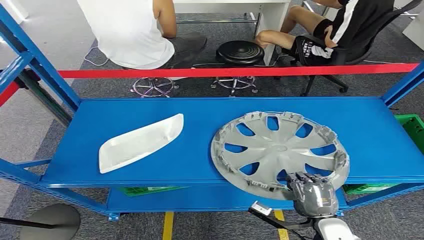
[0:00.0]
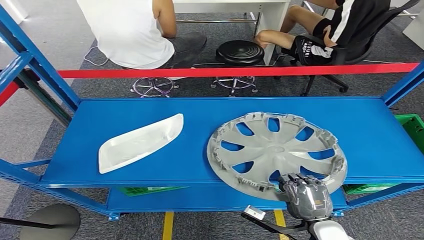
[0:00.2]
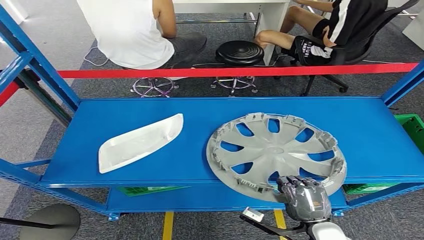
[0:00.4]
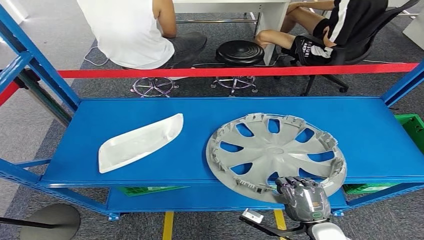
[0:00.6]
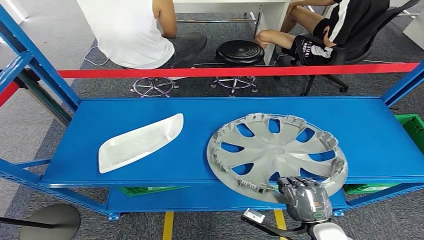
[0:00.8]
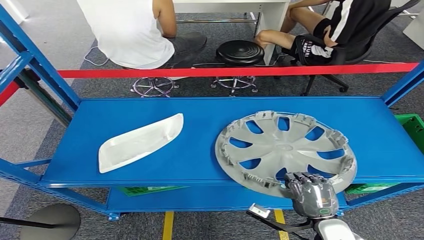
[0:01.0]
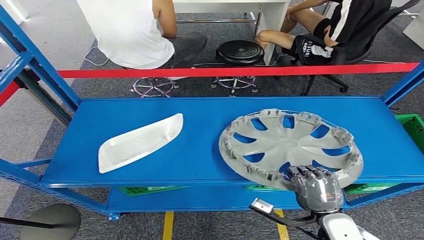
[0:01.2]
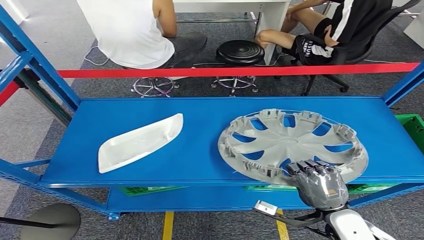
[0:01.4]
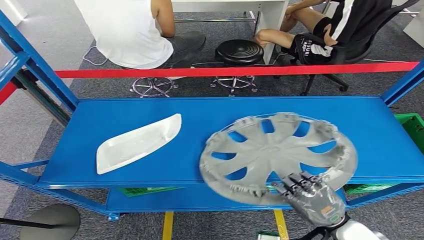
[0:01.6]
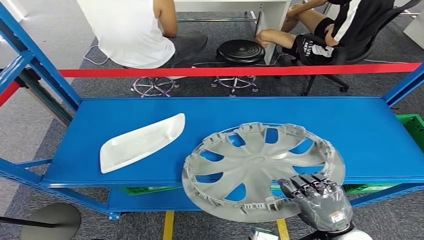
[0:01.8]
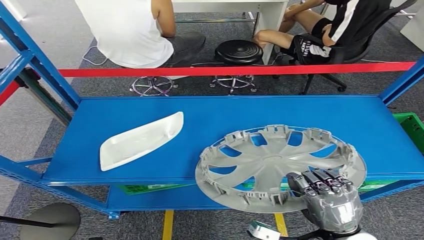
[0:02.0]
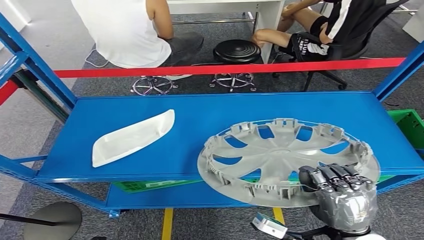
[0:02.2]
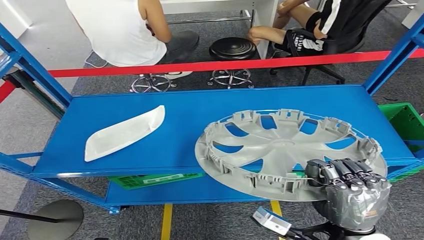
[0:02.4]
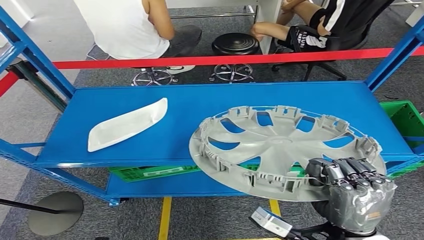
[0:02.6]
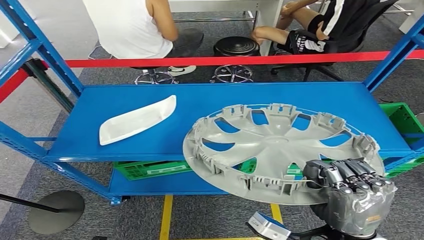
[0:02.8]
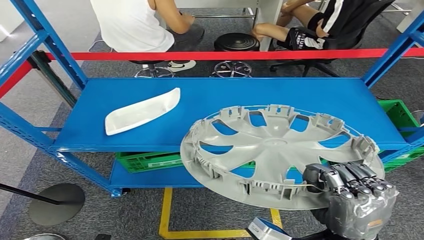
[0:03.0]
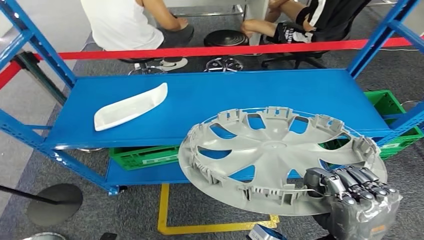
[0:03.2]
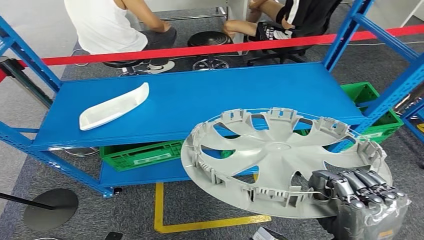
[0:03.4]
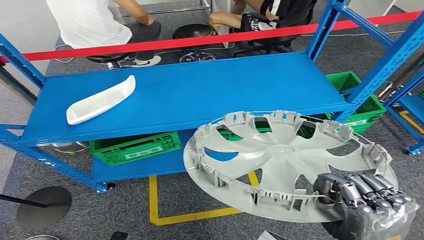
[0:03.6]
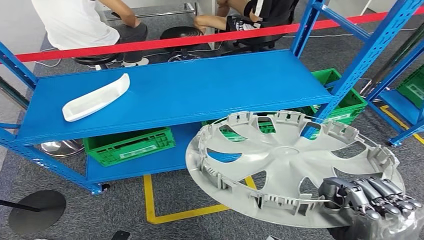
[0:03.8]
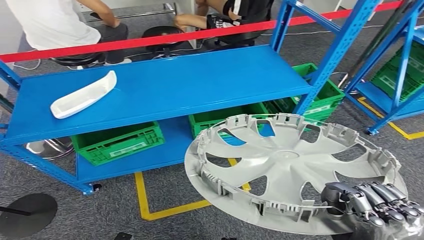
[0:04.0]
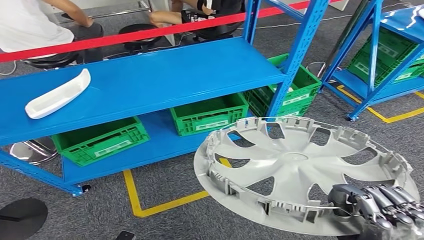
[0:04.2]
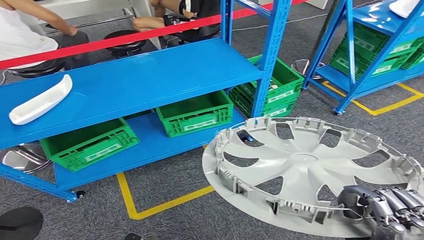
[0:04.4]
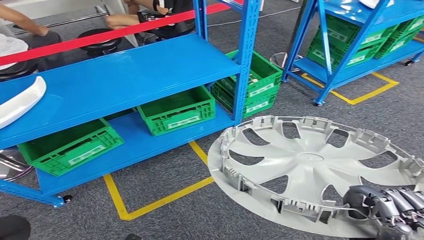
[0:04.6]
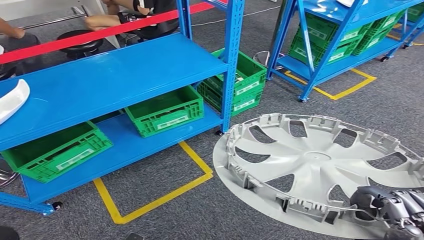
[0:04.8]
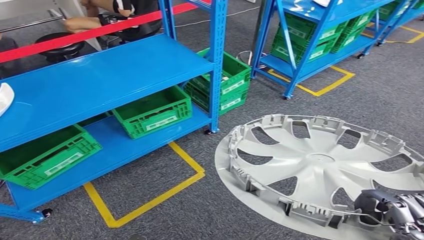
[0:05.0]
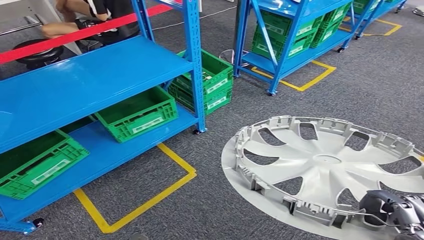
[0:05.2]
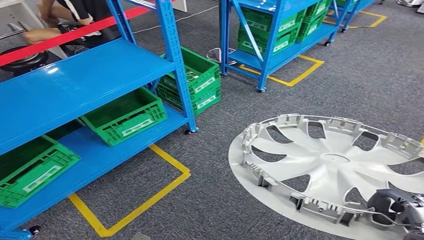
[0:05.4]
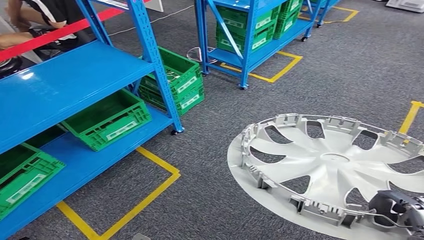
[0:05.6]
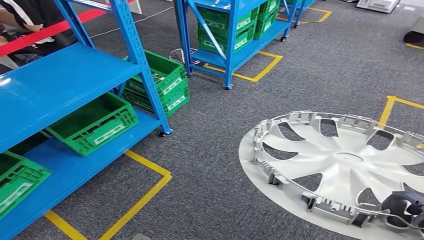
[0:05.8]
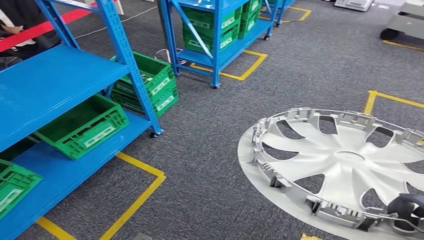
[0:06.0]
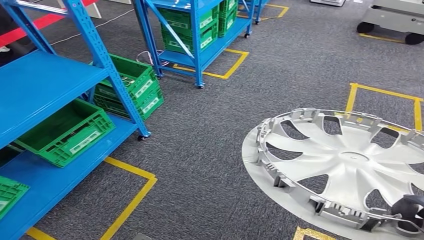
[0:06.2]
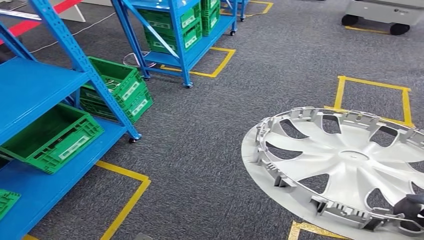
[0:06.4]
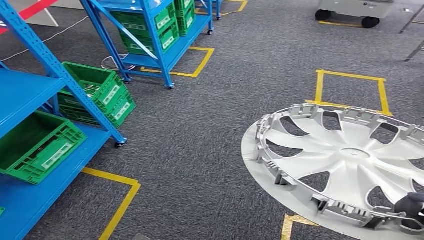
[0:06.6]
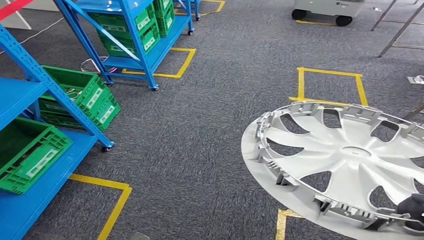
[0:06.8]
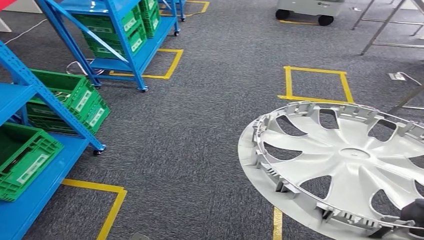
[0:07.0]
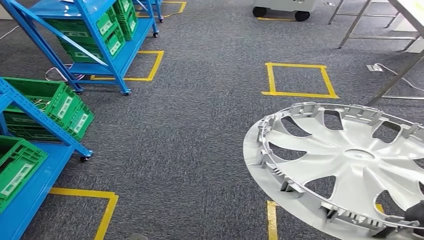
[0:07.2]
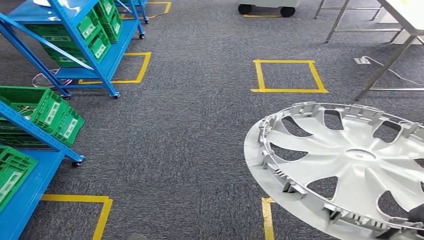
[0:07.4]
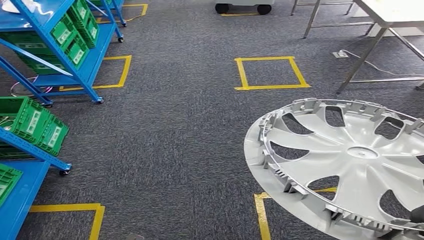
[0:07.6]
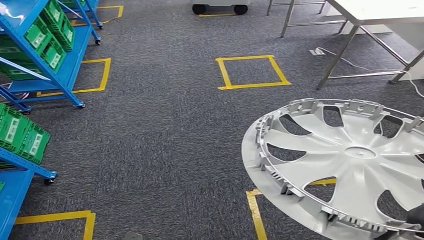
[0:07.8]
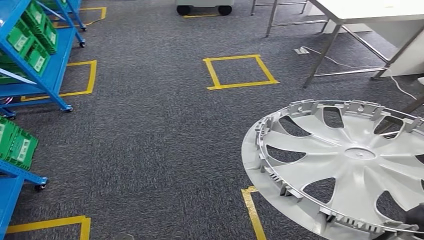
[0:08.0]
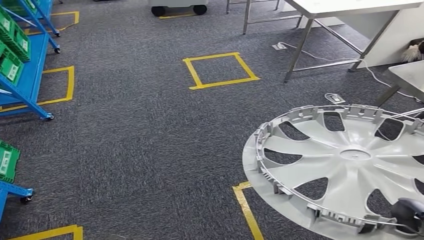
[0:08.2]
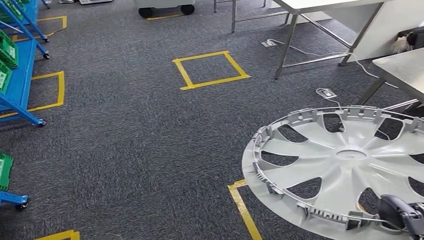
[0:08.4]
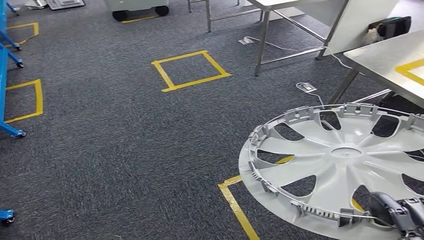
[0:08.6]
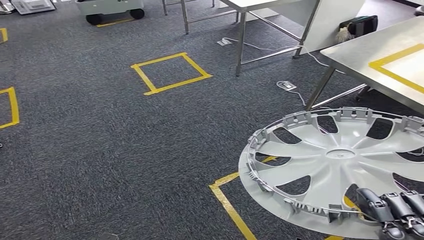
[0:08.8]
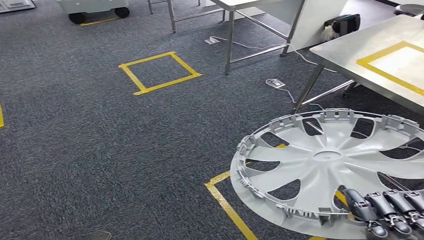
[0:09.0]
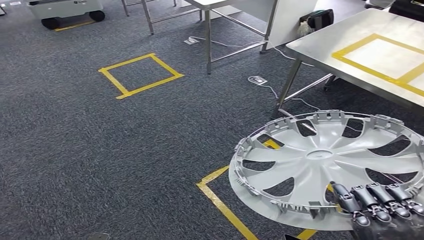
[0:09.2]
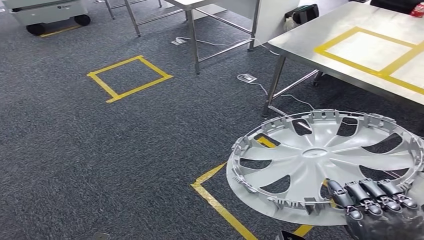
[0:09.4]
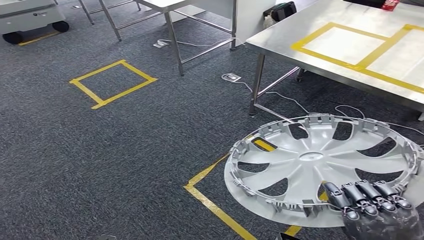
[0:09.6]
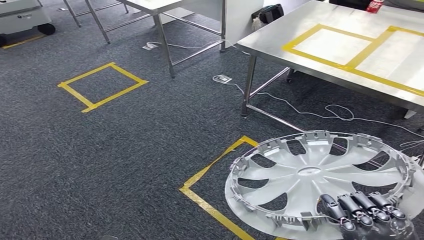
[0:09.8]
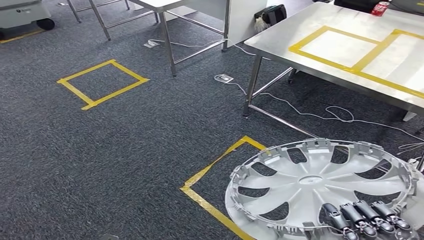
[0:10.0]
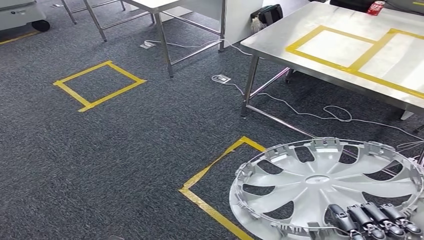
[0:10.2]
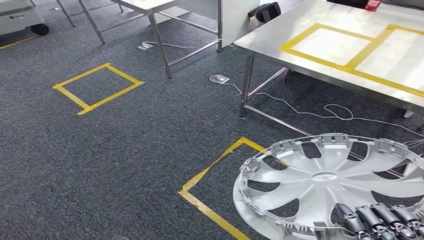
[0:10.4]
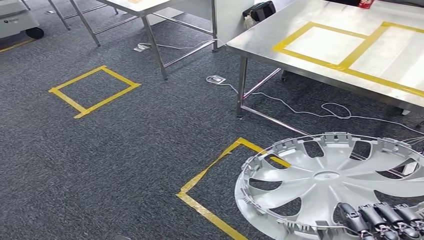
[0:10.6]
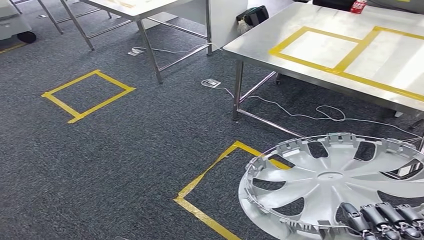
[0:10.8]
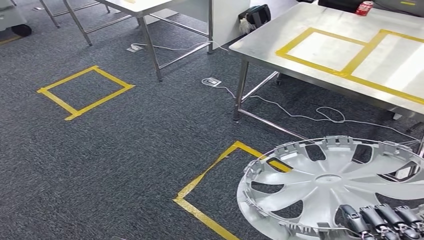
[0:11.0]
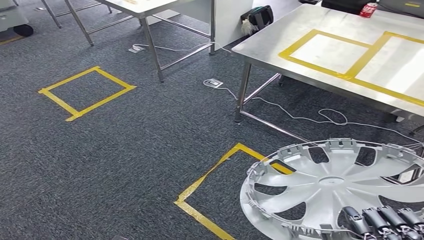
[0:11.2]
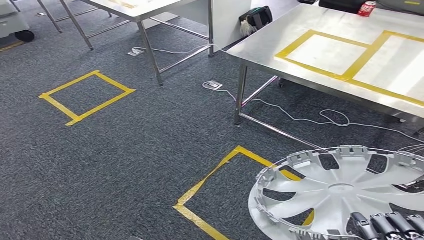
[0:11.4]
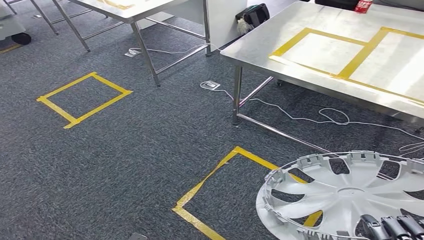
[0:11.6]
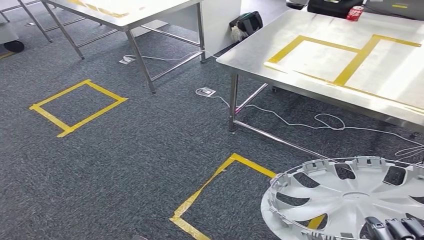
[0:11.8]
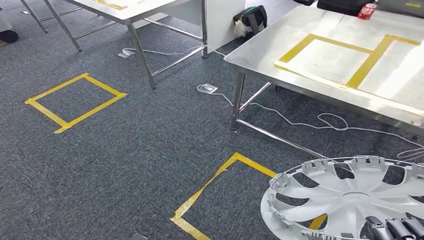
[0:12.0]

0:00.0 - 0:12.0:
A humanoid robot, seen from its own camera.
Step, 0:00.0 - 0:04.0: Pick up the small parts from the shelf.

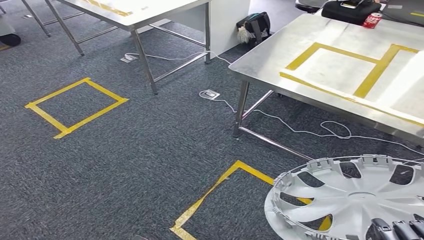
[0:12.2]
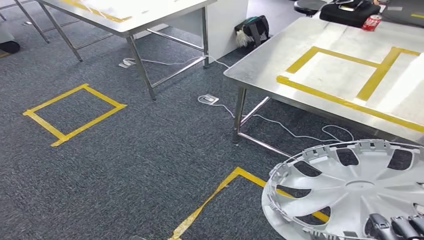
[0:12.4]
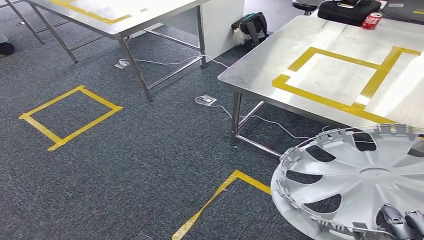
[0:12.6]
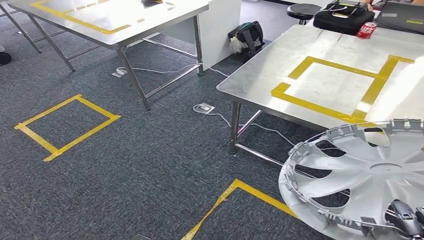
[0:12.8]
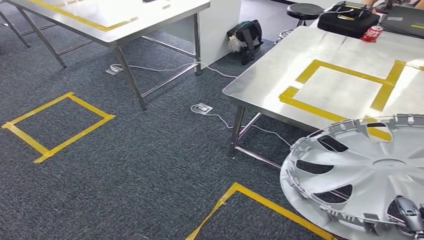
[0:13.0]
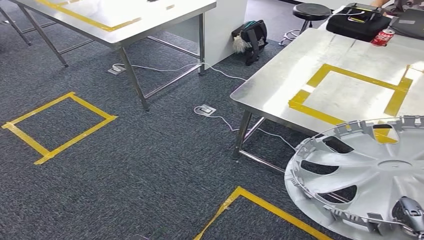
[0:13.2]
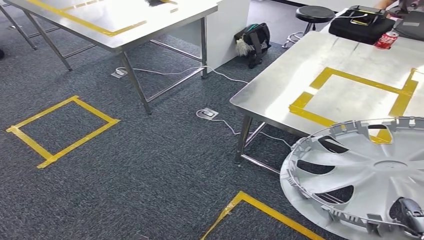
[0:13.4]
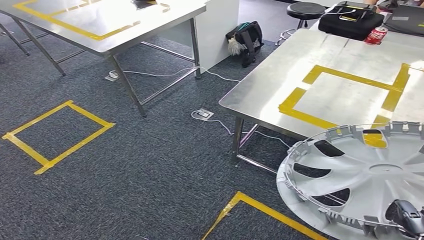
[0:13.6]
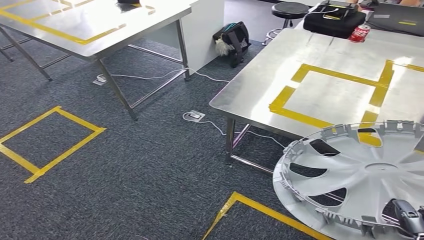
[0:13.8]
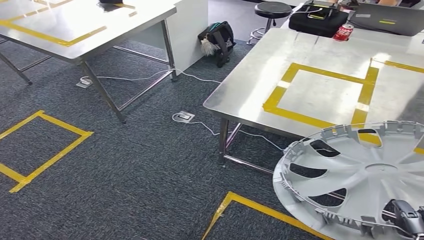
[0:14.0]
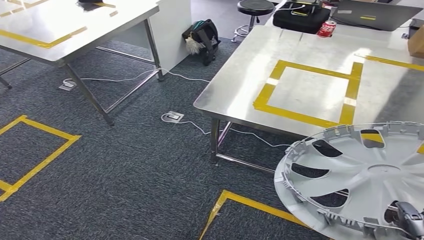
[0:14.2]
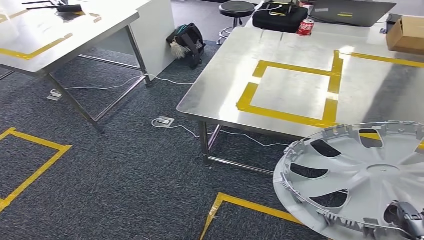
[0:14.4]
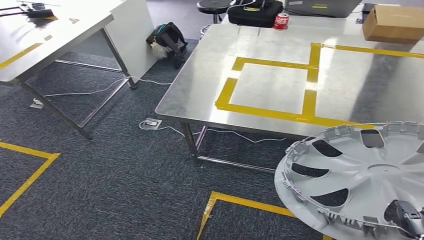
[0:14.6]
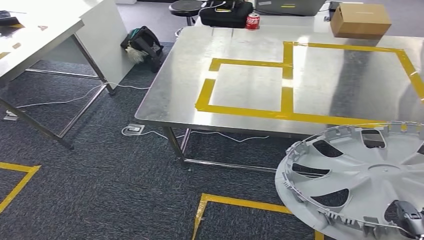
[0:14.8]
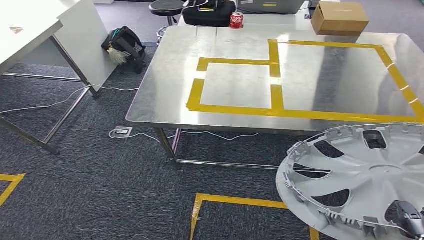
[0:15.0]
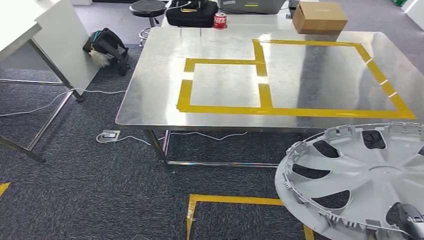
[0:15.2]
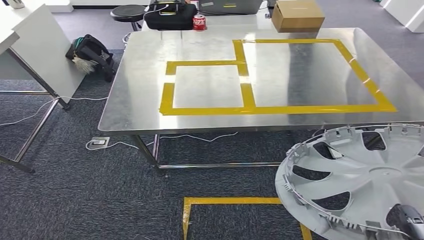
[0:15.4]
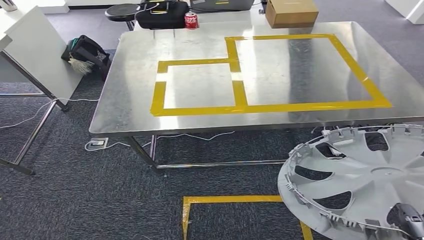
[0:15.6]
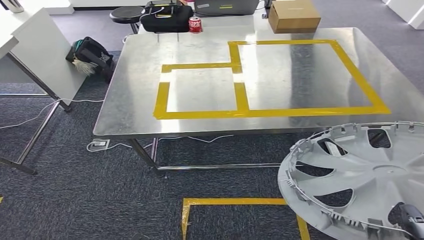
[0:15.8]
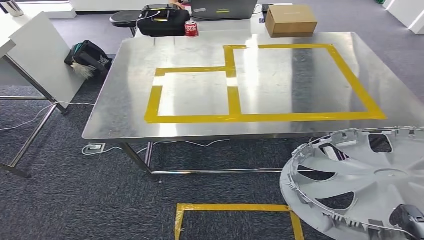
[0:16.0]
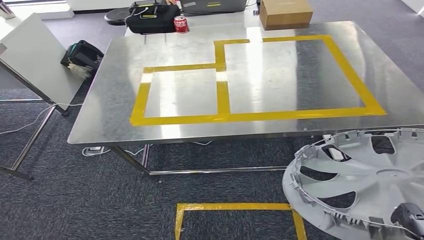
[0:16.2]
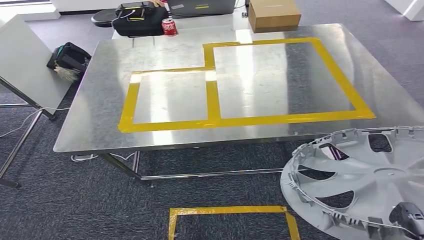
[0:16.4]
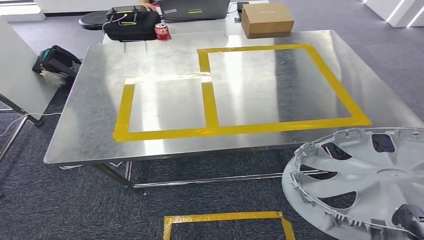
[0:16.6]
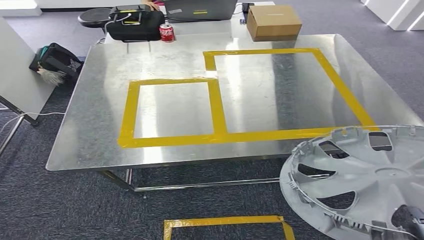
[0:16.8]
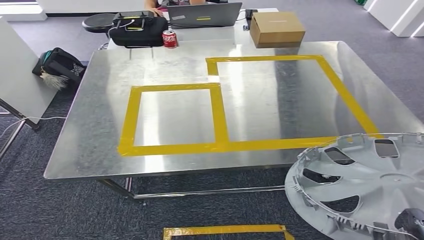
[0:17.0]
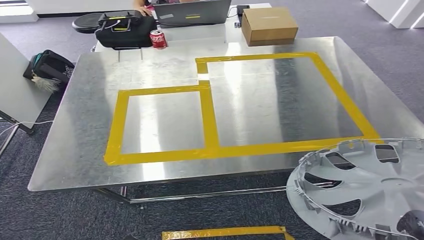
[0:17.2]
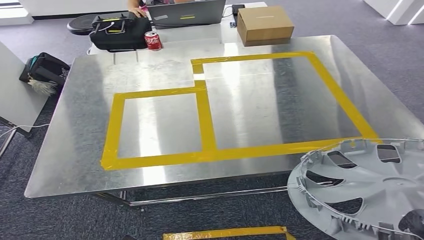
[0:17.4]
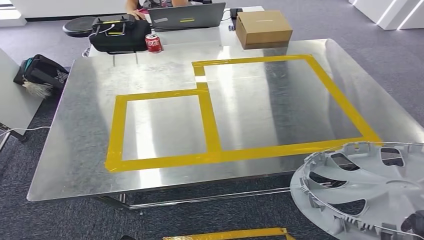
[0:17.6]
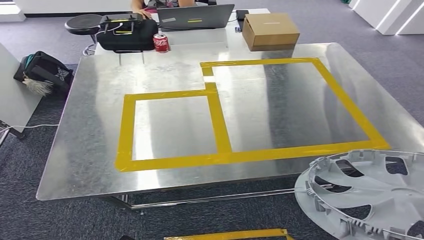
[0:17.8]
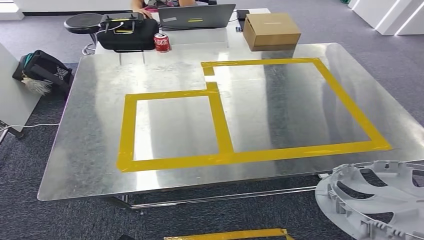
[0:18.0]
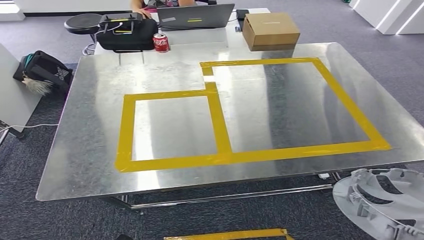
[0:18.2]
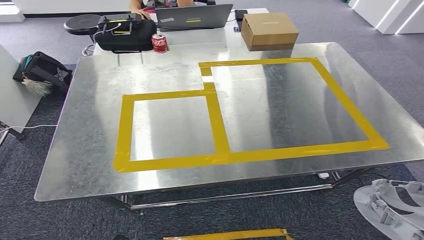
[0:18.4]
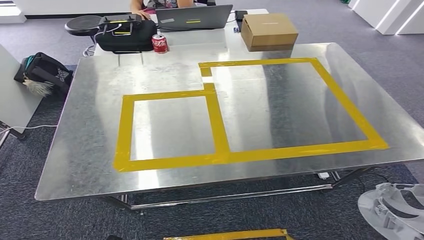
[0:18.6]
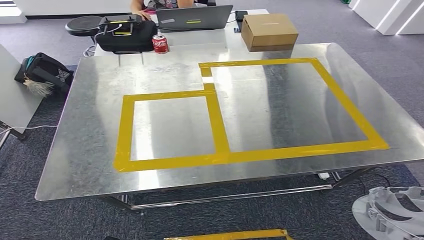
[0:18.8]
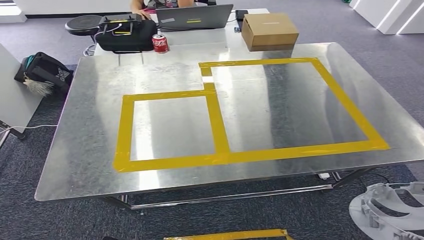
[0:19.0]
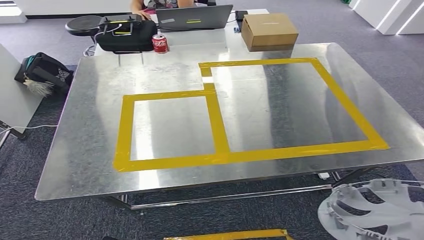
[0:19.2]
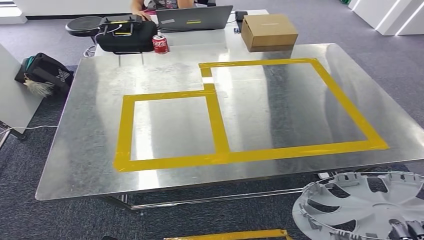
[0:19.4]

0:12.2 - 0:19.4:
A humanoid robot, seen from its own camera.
Step, 0:12.2 - 0:16.0: Move the small parts to the workbench.
0:18.0 - 0:19.4: The right hand moves downward, approximately 5 cm.
